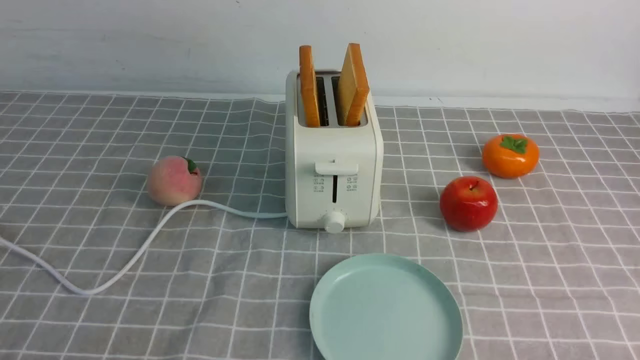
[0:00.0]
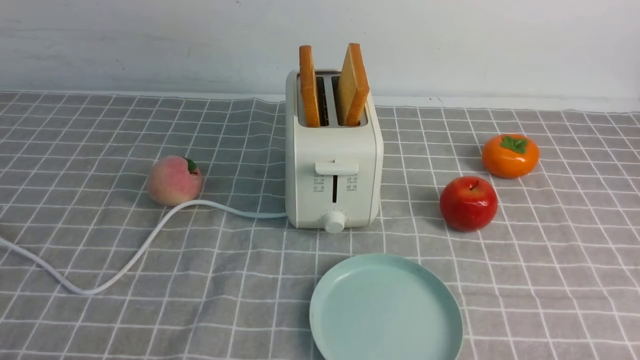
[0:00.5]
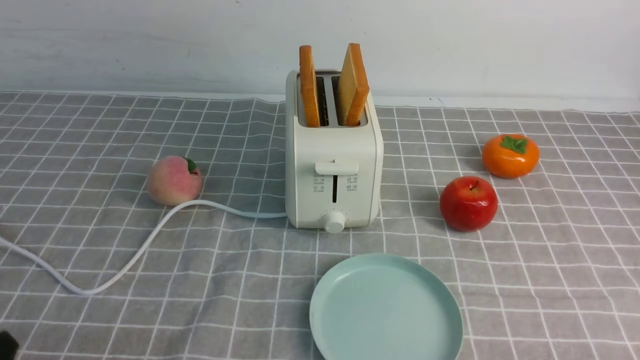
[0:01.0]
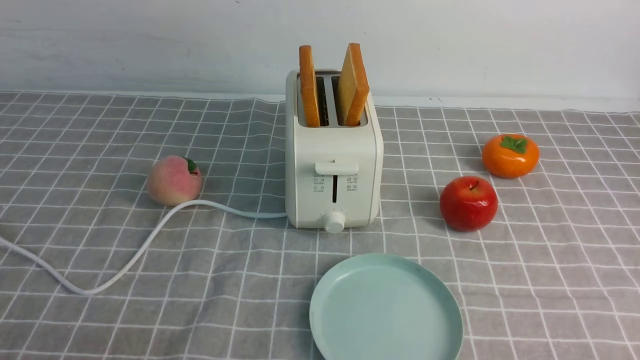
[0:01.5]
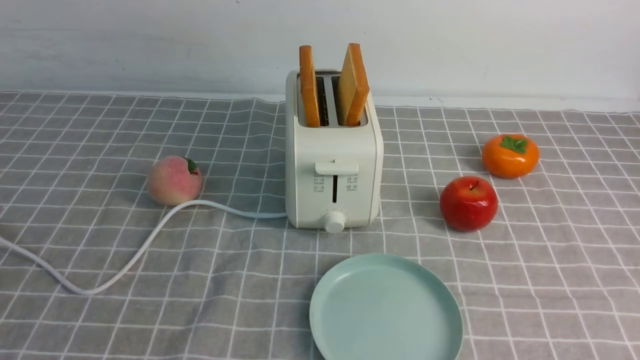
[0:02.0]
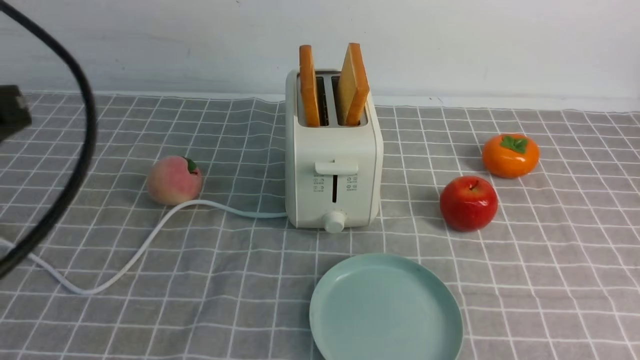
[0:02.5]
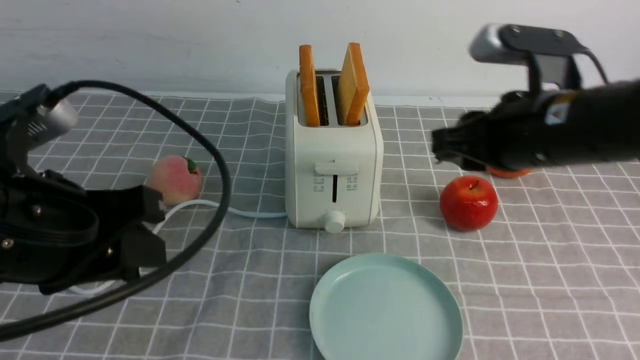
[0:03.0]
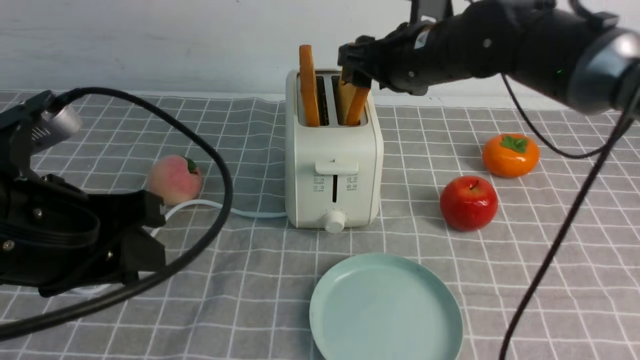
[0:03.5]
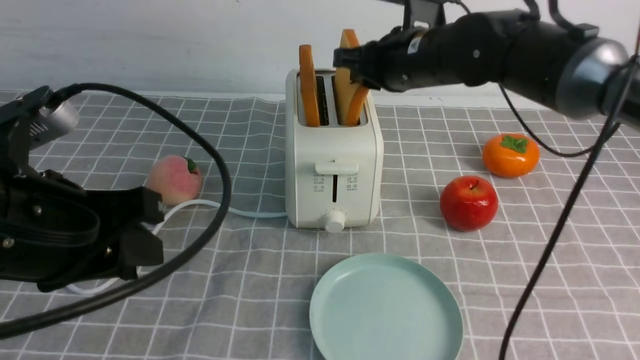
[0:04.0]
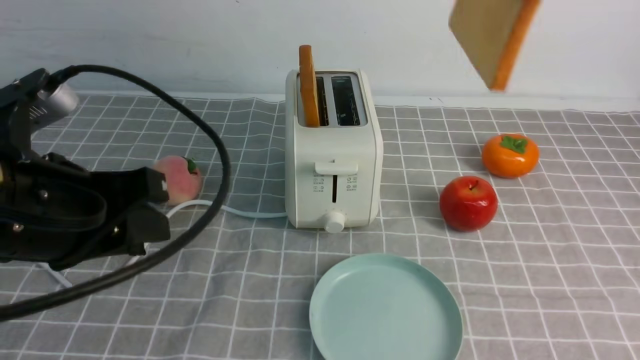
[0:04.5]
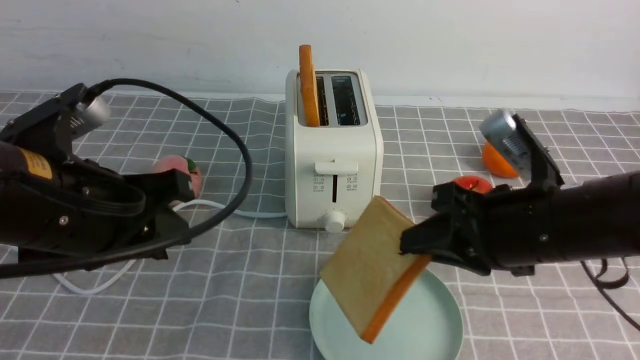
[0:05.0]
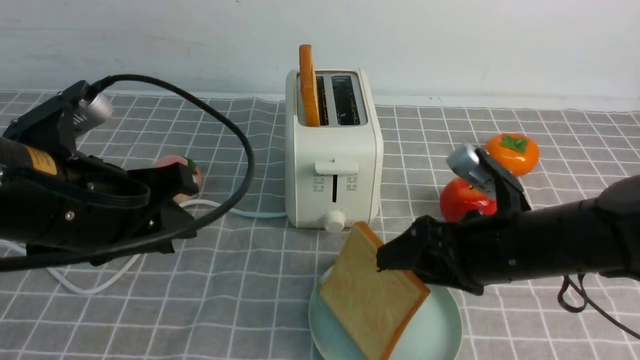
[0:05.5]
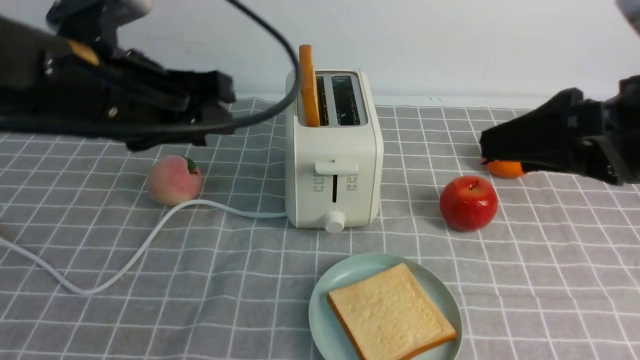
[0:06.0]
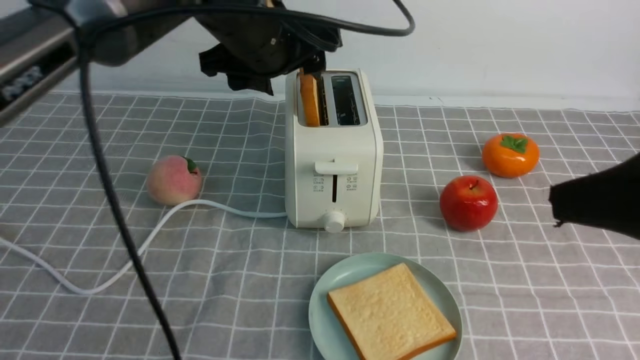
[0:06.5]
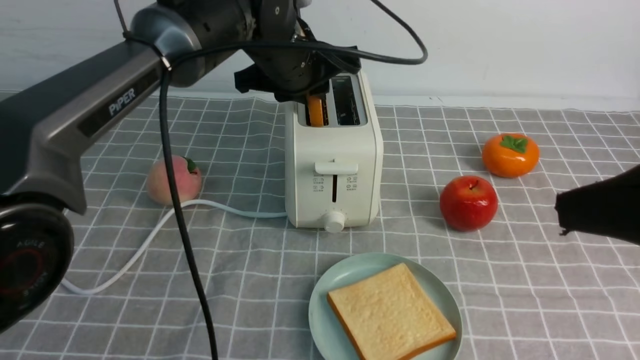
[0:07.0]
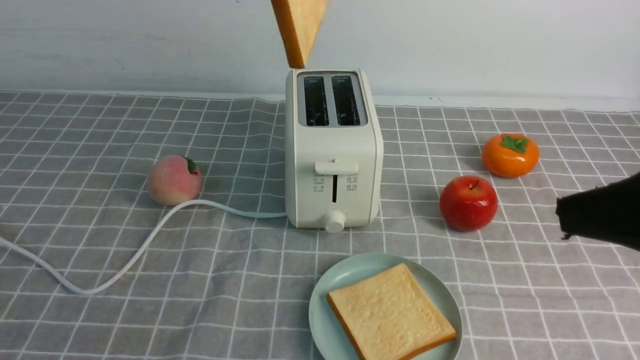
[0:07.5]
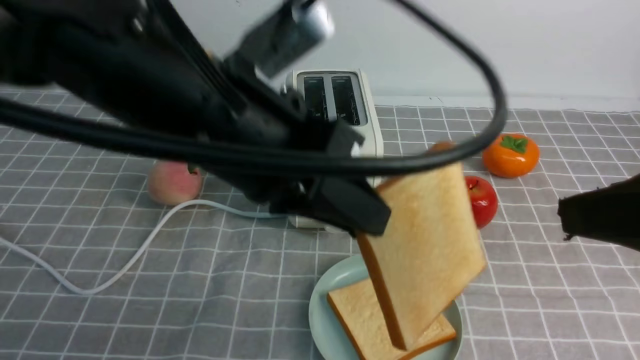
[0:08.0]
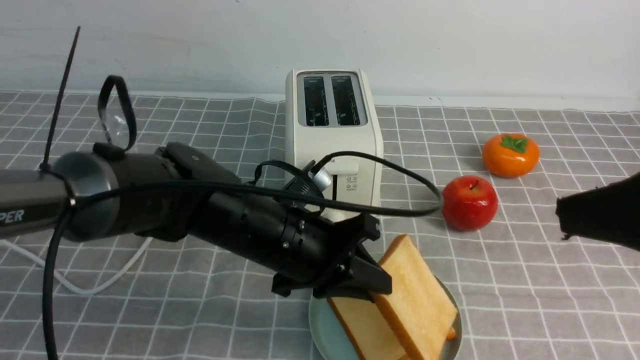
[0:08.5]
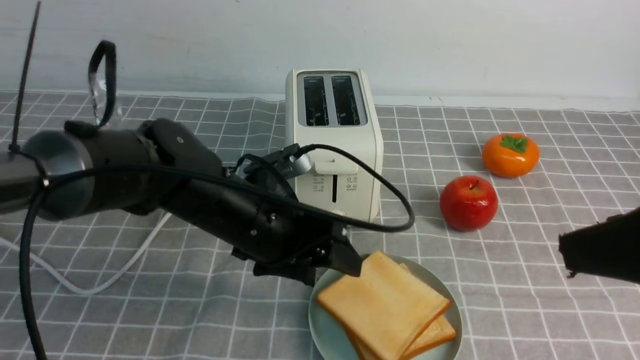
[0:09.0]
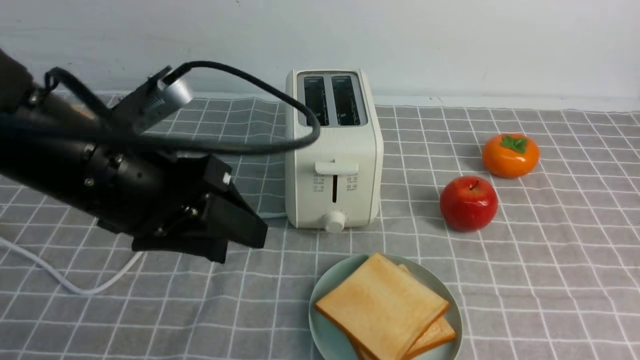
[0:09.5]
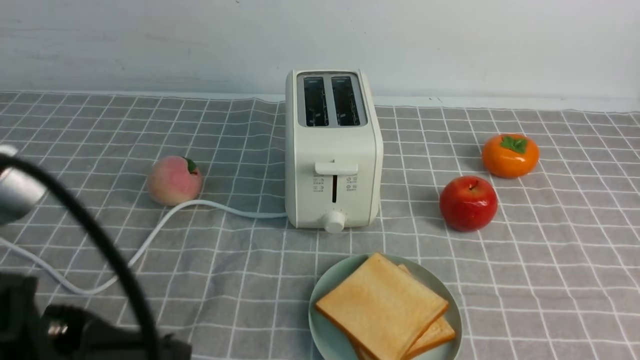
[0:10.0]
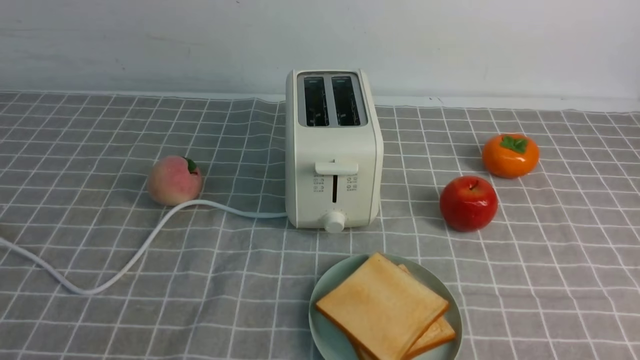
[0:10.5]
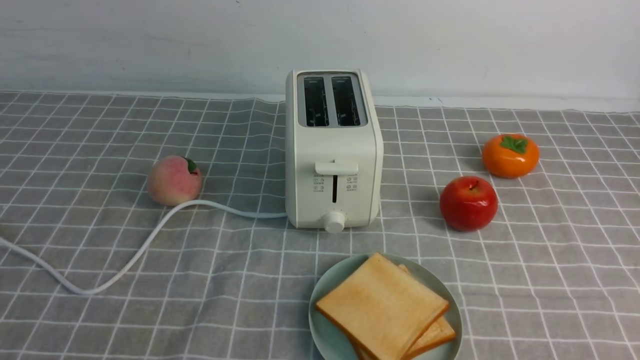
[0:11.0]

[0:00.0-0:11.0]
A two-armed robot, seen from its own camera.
Task of the whole recording: take toasted bread from bread machine on grey coffee table place on plate.
Step, 0:00.0 to 0:04.0: use the right arm to take out a slice of bread.
Step, 0:04.5 to 0:05.5: use the right arm to put a slice of bread into the plate.
Step, 0:06.0 to 0:07.0: use the left arm to take out a slice of bread.
Step, 0:07.5 to 0:09.0: use the left arm to put a slice of bread into the empty plate.
0:02.0 to 0:03.5: The right gripper heads forward and to the left, covering some 40 cm, and opens, while the left gripper travels forward and to the right by about 15 cm.
0:03.5 to 0:05.5: The right gripper goes about 20 cm backward, downward and to the right, and closes, then opens again.
0:05.5 to 0:07.5: The left gripper goes approximately 20 cm upward, to the right and forward, and opens, then closes once more. Meanwhile the right gripper heads upward and backward, covering approximately 20 cm.
0:07.5 to 0:09.0: The left gripper shifts some 25 cm downward, and opens up.
0:09.0 to 0:11.0: The right gripper travels downward and backward by about 20 cm, and closes its fingers. The left gripper goes approximately 35 cm backward and to the left, and closes.
